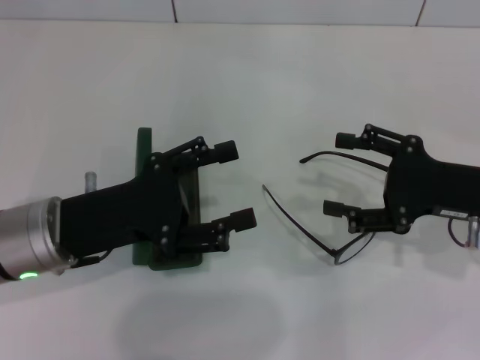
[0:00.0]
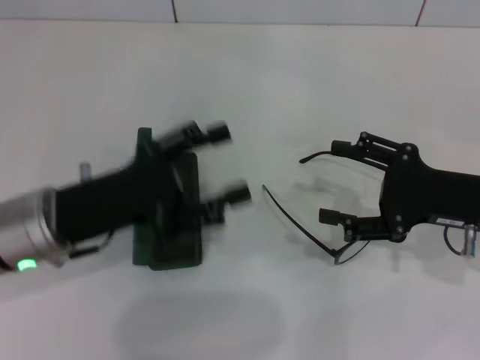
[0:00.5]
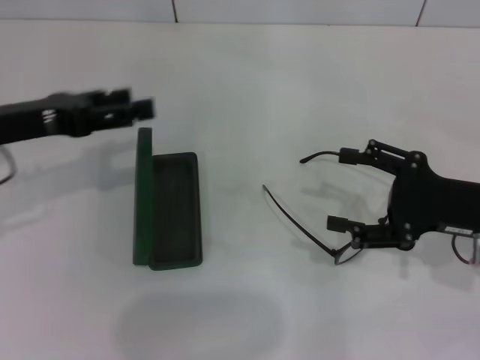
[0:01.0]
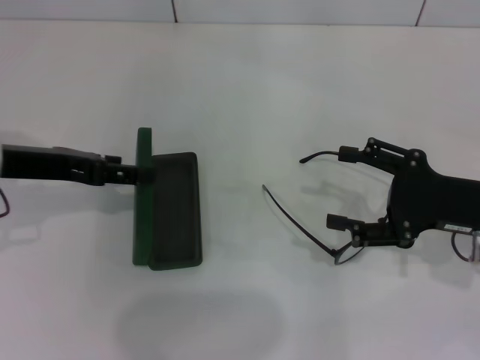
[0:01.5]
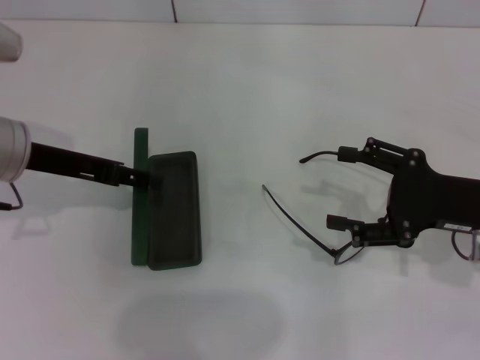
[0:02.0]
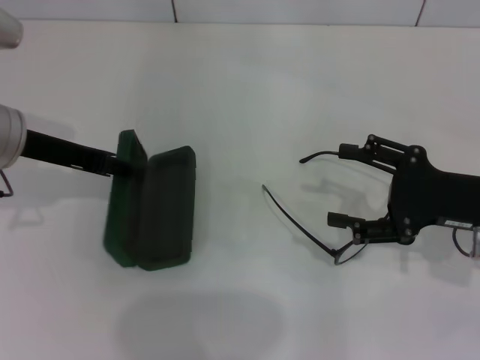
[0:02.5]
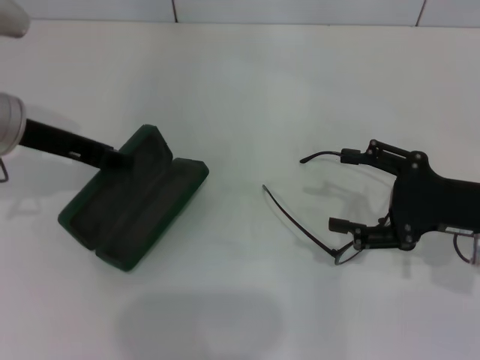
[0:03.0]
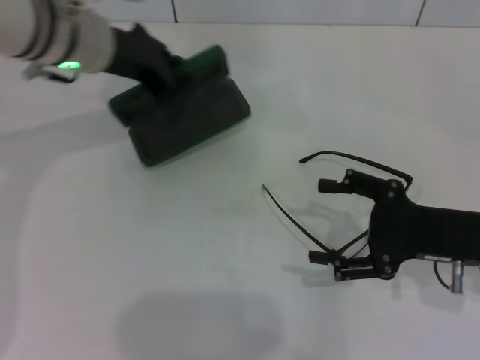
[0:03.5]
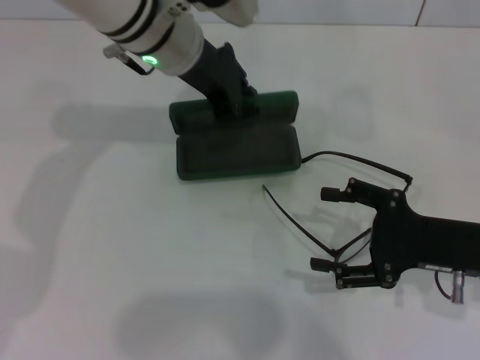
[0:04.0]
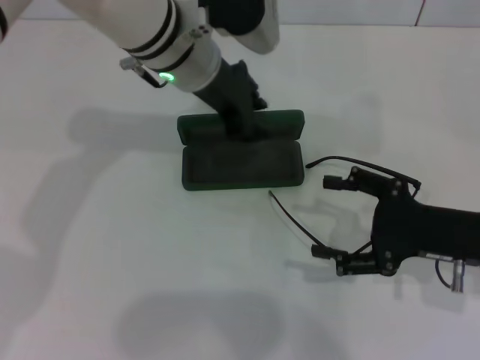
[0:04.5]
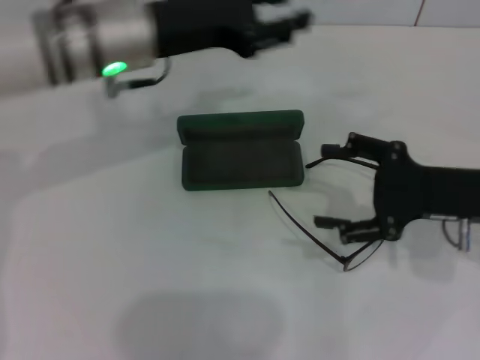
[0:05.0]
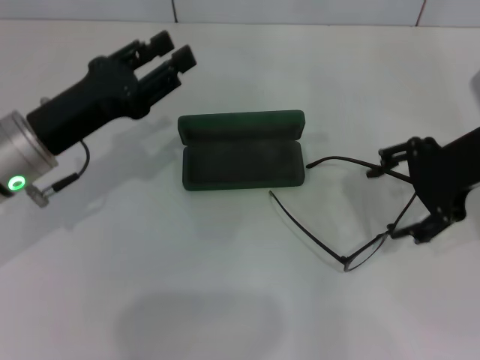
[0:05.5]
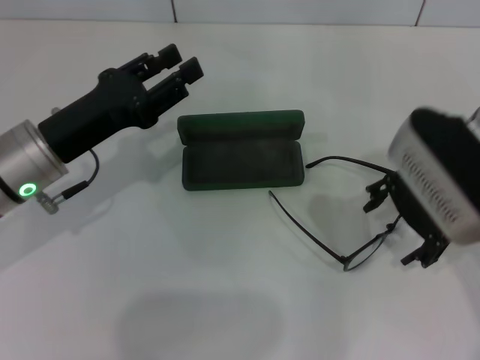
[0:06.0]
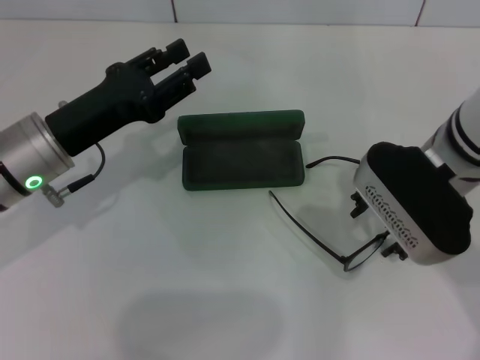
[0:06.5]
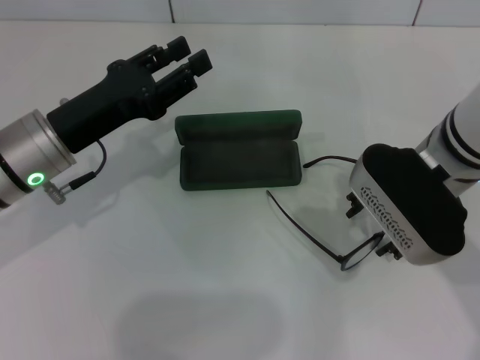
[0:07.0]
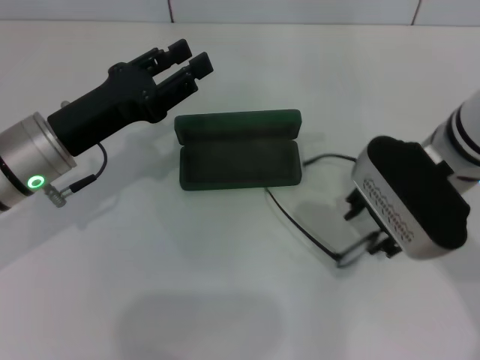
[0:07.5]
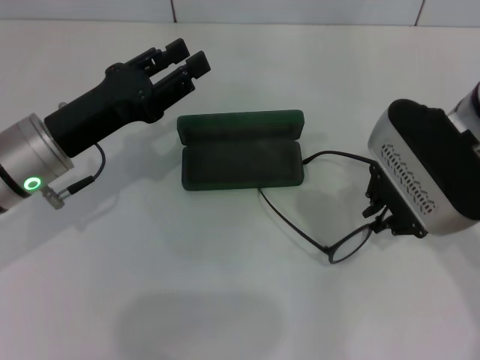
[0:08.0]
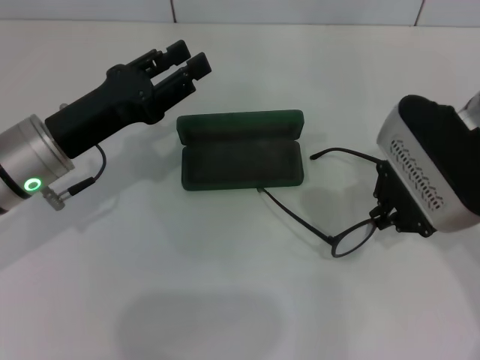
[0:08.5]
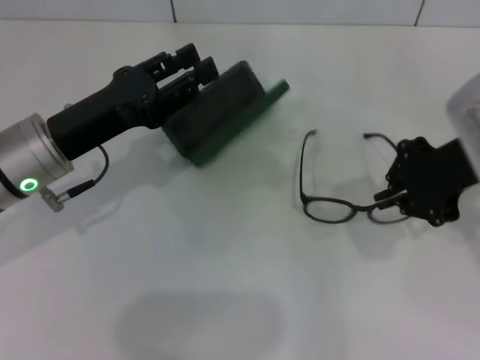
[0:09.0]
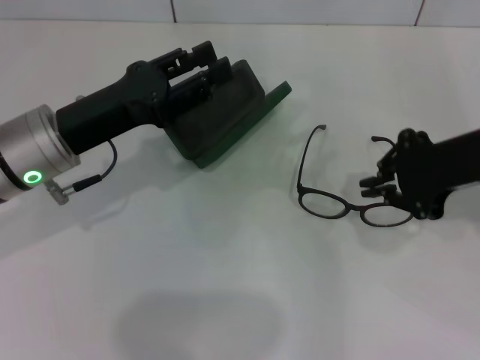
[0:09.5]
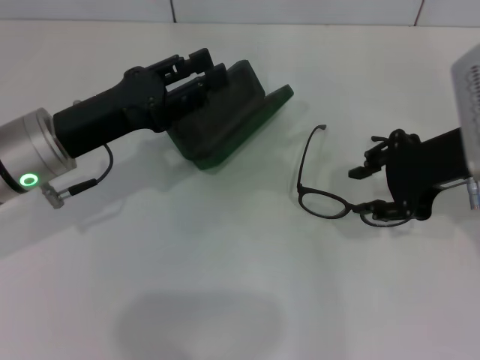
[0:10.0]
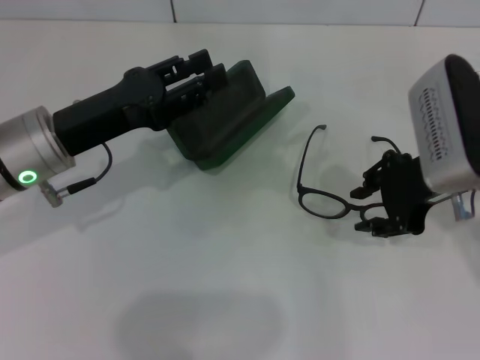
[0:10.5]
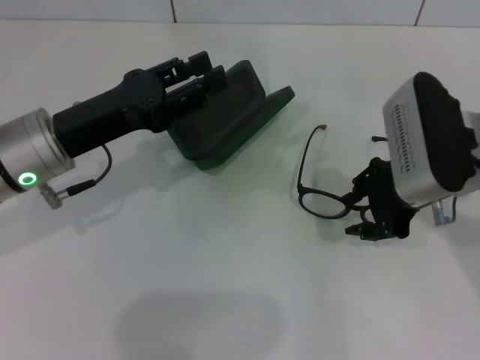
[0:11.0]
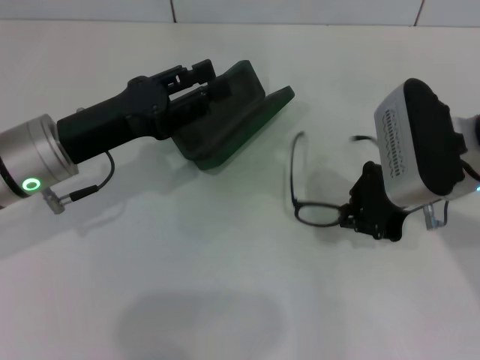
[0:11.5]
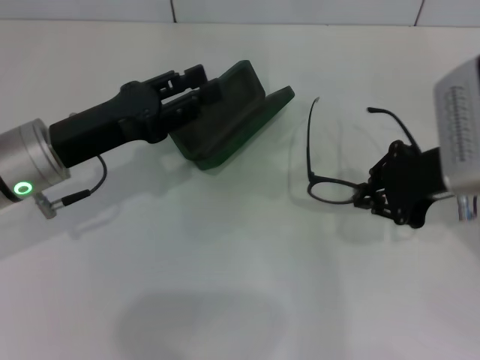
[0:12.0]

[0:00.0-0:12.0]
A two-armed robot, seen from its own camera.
Step, 0:00.0 to 0:02.5: Grab the glasses case with your left hand.
Step, 0:03.0 to 0:04.0: Place the glasses case in the center of the table with your left hand.
Step, 0:04.5 to 0:11.5: Grab the eyeglass frame with your right hand.
0:00.0 to 0:02.0: The left gripper shifts roughly 10 cm forward and upward.
0:02.0 to 0:04.0: The left gripper moves to the right and forward, some 20 cm, and closes.
0:04.0 to 0:06.0: The left gripper heads to the left, backward and downward, covering approximately 20 cm, and opens its fingers, while the right gripper travels upward, to the left and forward by about 15 cm.
0:06.0 to 0:08.0: The right gripper closes up.
0:08.0 to 0:10.0: The right gripper is displaced to the right by approximately 5 cm.
0:10.0 to 0:12.0: There are only small adjustments of the grippers.

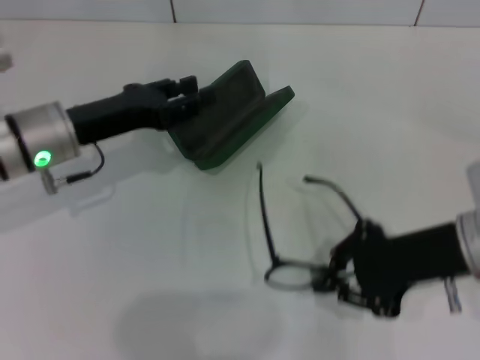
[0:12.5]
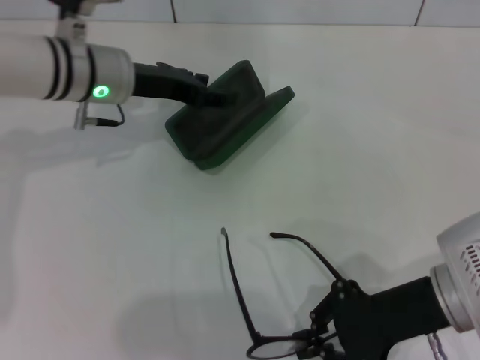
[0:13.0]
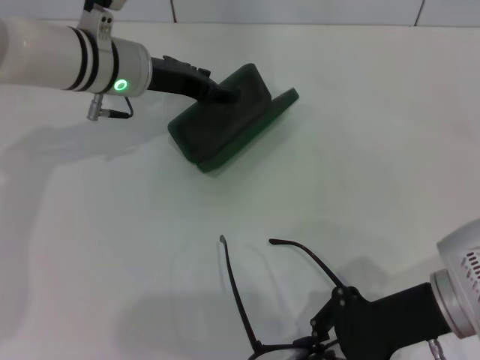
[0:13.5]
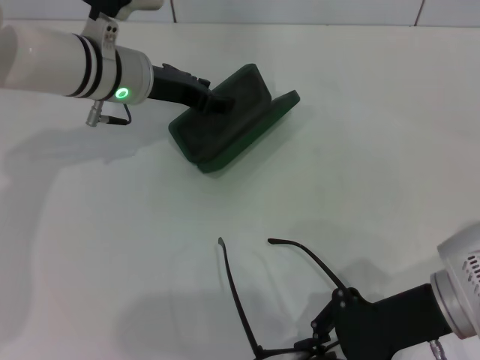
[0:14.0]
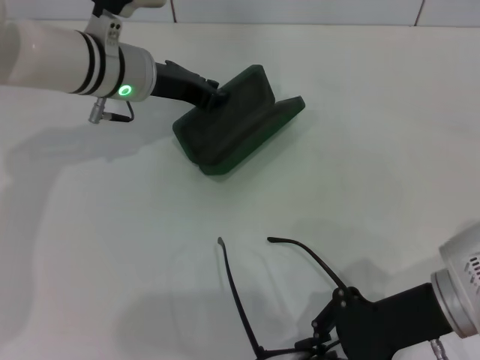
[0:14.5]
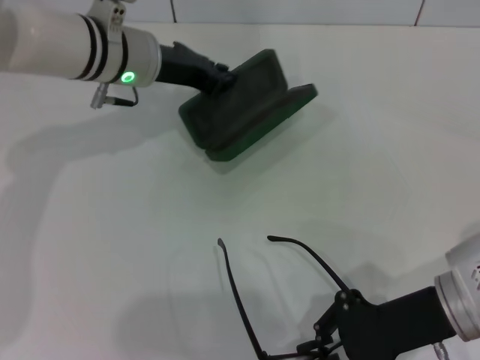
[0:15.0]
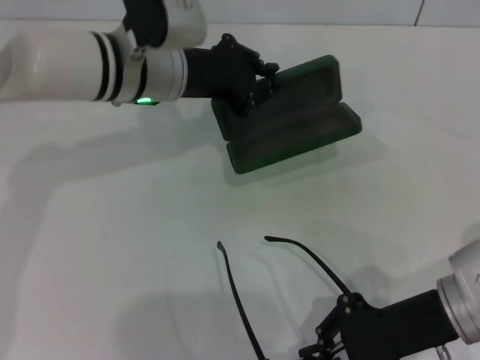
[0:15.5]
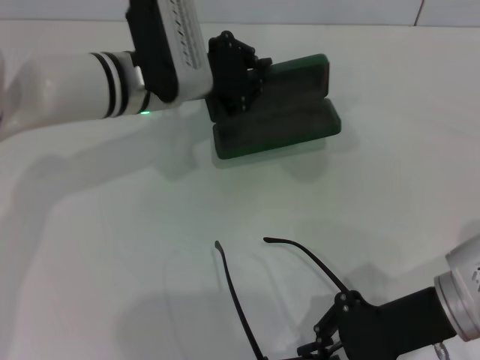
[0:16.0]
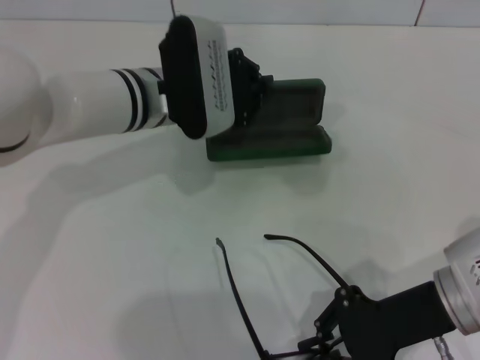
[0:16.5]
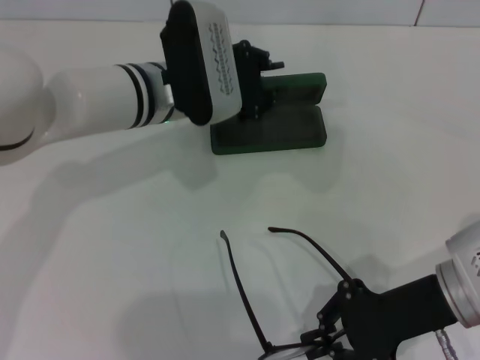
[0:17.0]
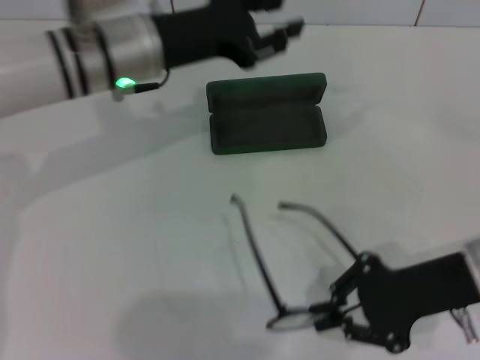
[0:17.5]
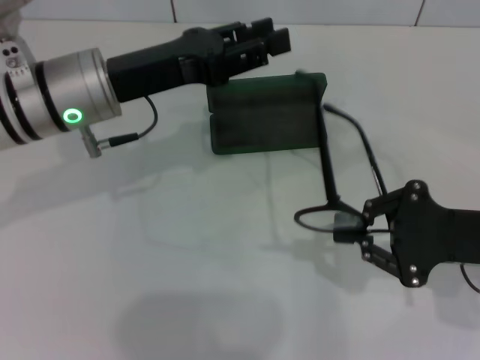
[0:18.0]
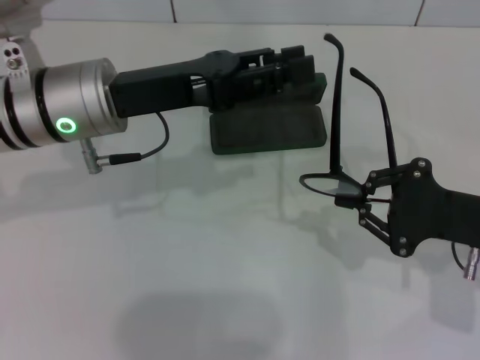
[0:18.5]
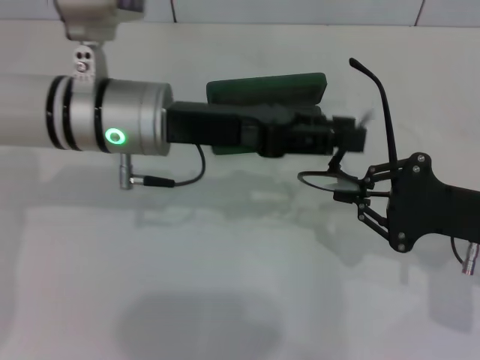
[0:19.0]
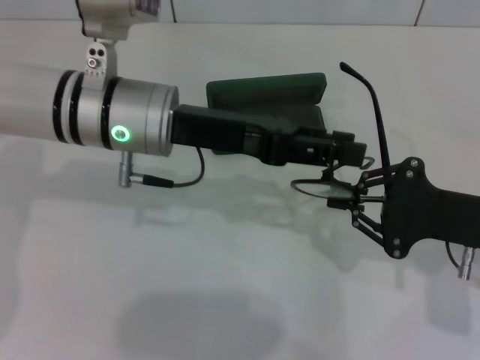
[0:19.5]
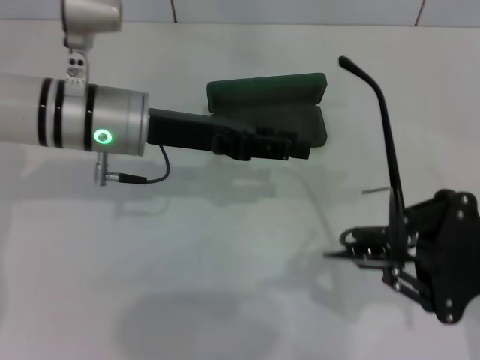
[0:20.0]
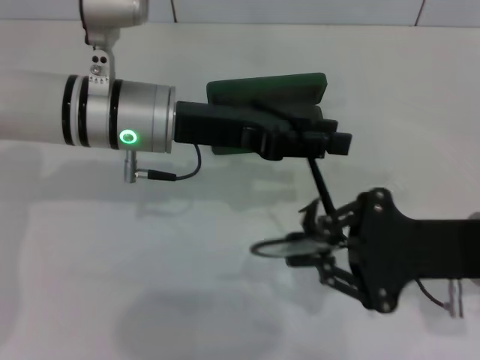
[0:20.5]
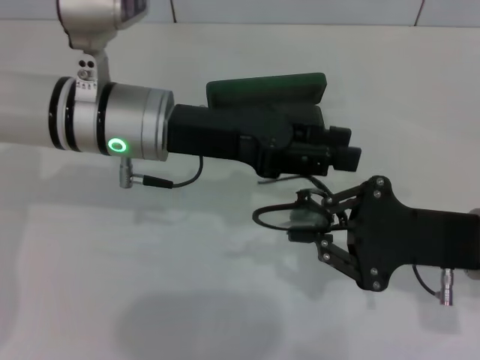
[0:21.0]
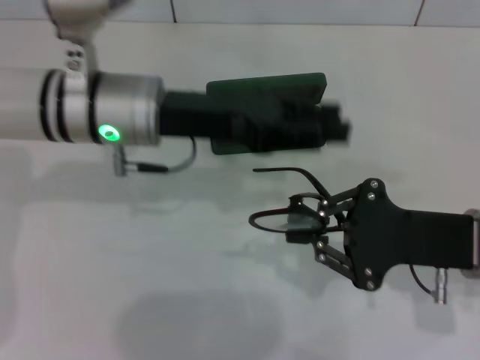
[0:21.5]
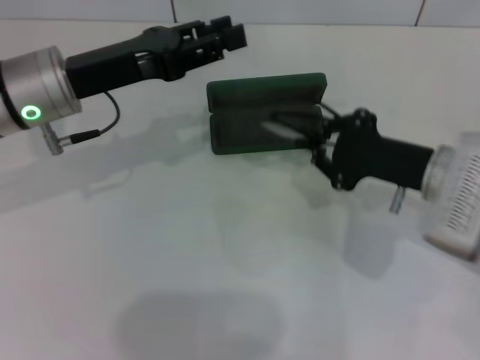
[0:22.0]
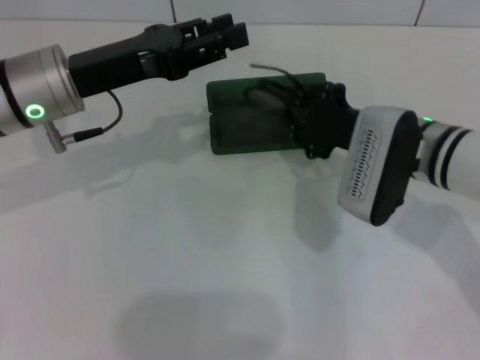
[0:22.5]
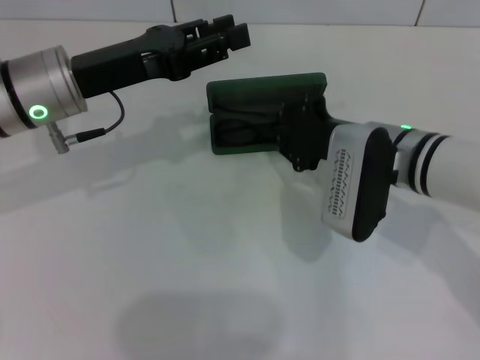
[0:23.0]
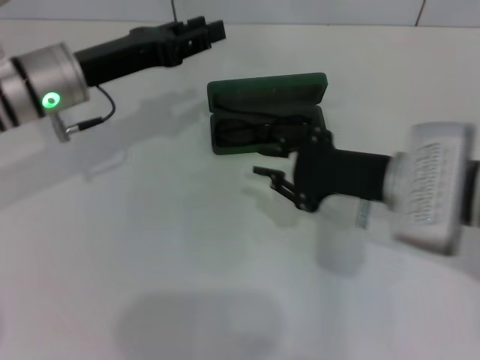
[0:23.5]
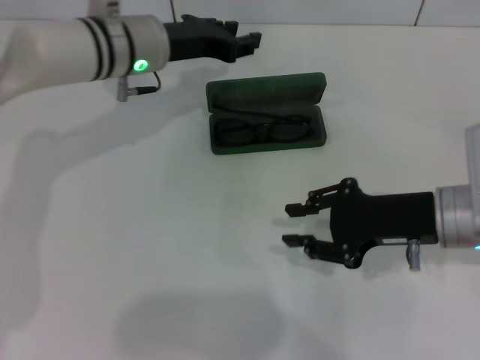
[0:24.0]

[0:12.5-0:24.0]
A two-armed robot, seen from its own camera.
Step, 0:12.5 to 0:14.5: Grab the glasses case with your left hand.
Step, 0:15.0 to 0:16.5: Place the glasses case in the center of the table with your left hand.
Step, 0:17.0 to 0:21.0: Fold the frame with your left hand.
Step, 0:21.5 to 0:22.5: Put the glasses into the case with your right hand.
0:12.5 to 0:14.5: The left gripper heads forward and to the right, covering about 10 cm.
0:14.5 to 0:16.5: The left gripper shifts by approximately 5 cm.
0:16.5 to 0:18.5: The left gripper shifts some 10 cm backward and to the left, and opens its fingers; the right gripper heads to the right, covering roughly 5 cm.
0:20.0 to 0:22.0: The right gripper travels forward and to the left by approximately 10 cm. The left gripper is displaced to the left by about 5 cm.
0:22.0 to 0:24.0: The left gripper heads forward and to the right, covering approximately 10 cm.

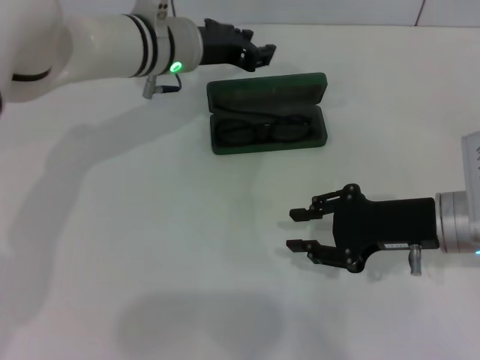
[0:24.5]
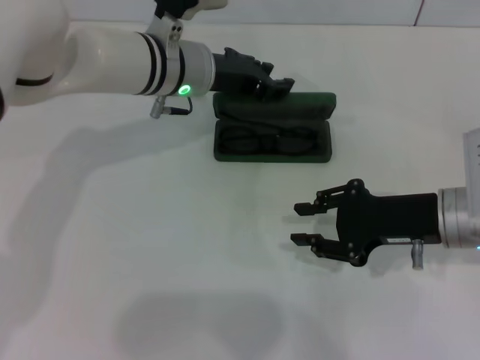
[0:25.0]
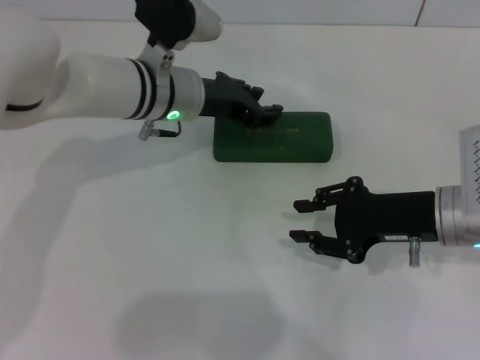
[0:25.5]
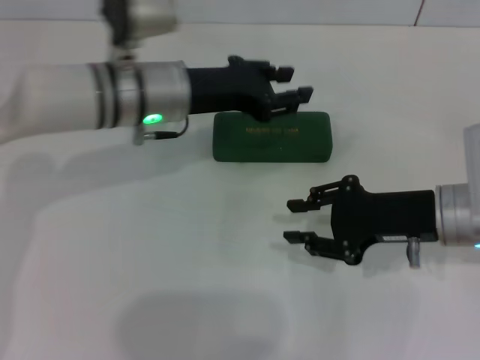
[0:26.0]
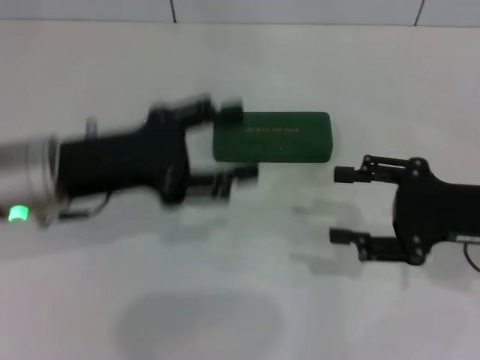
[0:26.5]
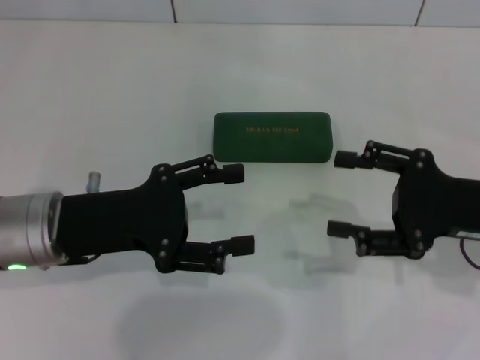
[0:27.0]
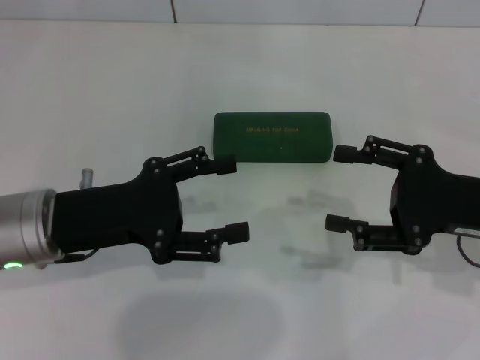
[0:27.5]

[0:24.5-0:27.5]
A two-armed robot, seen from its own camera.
0:24.5 to 0:26.0: The left gripper is displaced backward by some 5 cm.
0:26.0 to 0:27.5: The right gripper travels to the right by approximately 5 cm, and opens. The left gripper goes about 15 cm backward and to the left, and opens.
